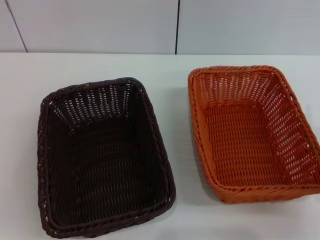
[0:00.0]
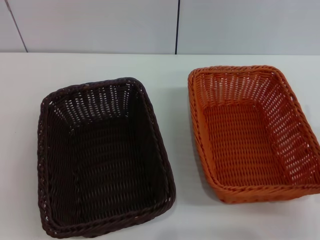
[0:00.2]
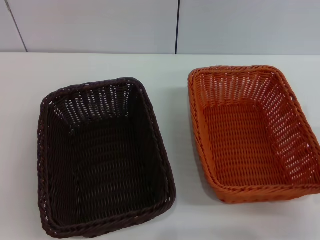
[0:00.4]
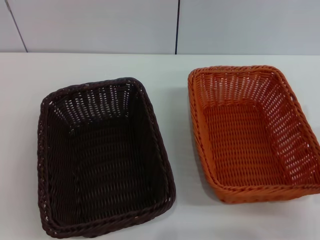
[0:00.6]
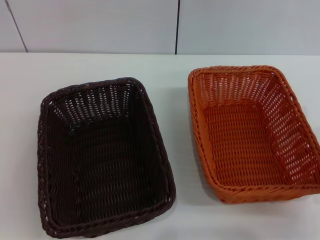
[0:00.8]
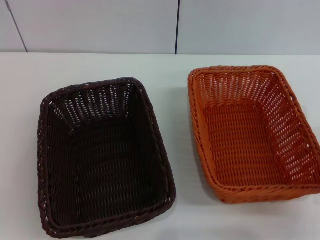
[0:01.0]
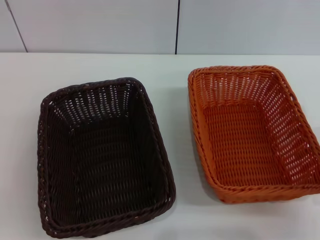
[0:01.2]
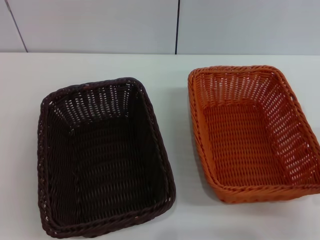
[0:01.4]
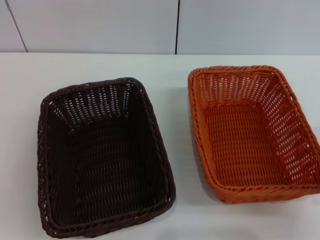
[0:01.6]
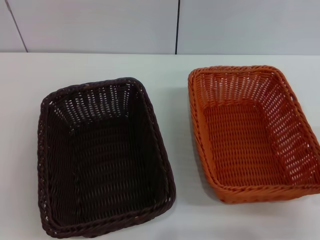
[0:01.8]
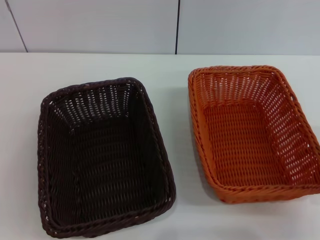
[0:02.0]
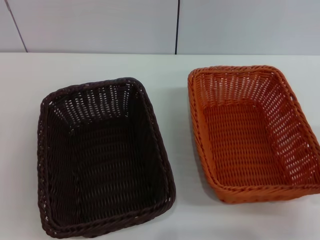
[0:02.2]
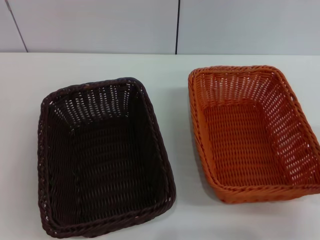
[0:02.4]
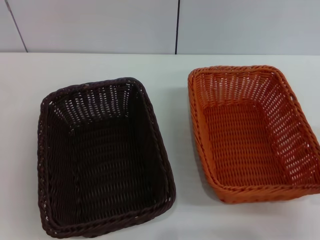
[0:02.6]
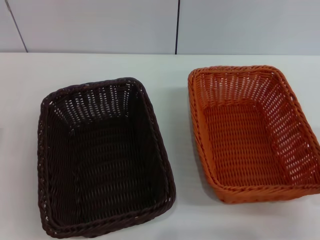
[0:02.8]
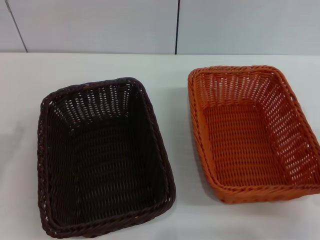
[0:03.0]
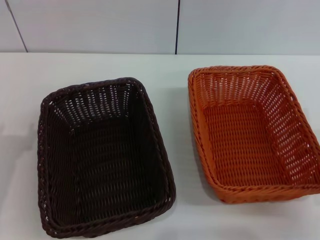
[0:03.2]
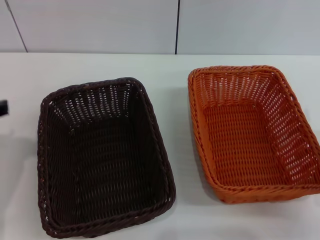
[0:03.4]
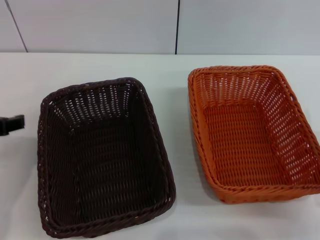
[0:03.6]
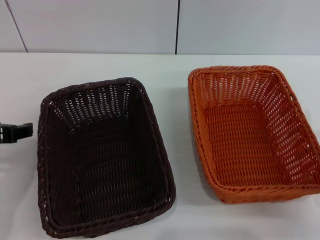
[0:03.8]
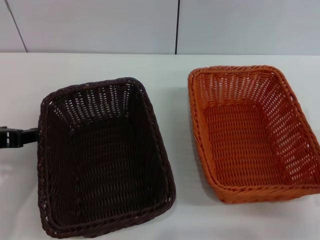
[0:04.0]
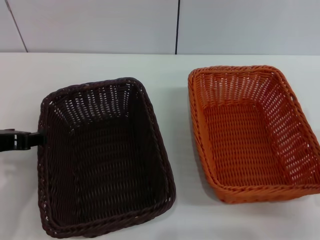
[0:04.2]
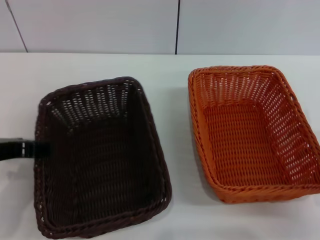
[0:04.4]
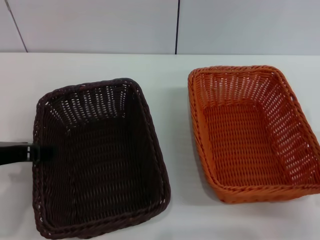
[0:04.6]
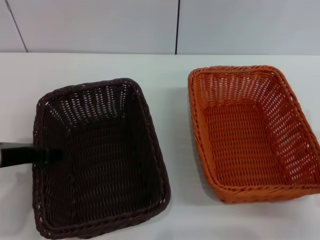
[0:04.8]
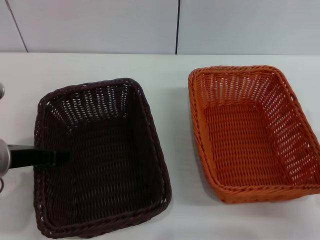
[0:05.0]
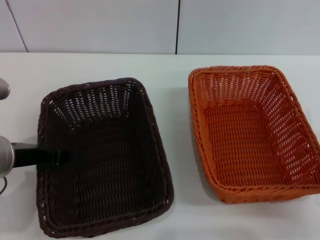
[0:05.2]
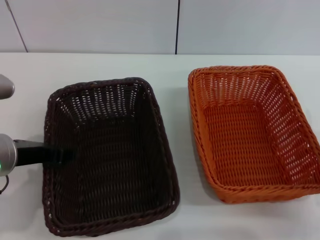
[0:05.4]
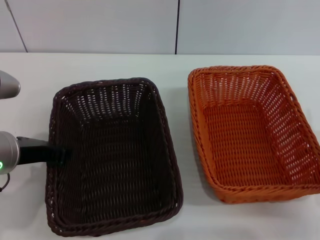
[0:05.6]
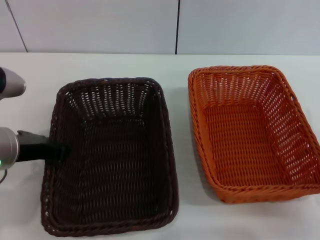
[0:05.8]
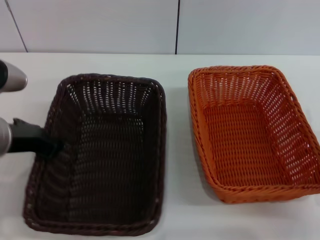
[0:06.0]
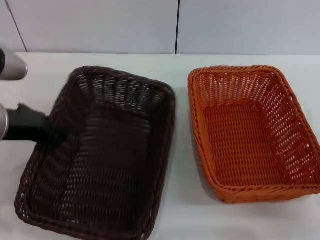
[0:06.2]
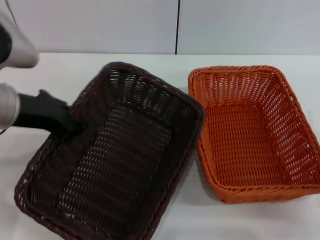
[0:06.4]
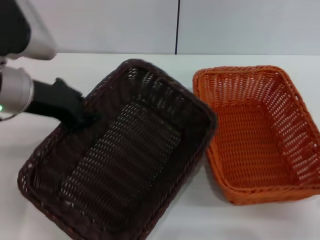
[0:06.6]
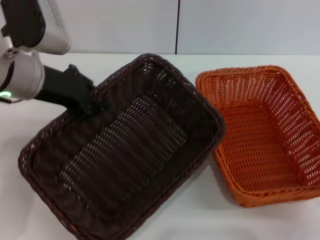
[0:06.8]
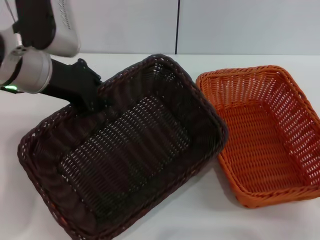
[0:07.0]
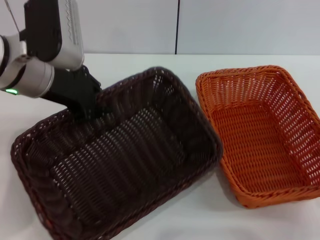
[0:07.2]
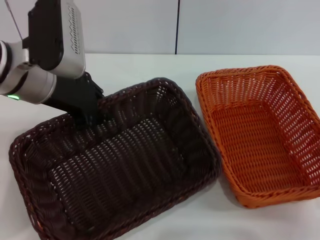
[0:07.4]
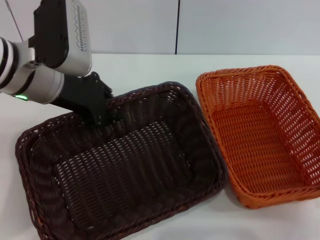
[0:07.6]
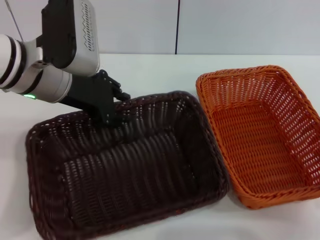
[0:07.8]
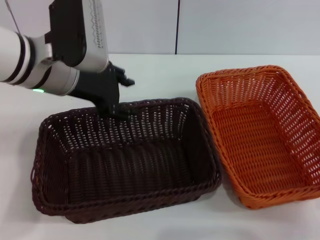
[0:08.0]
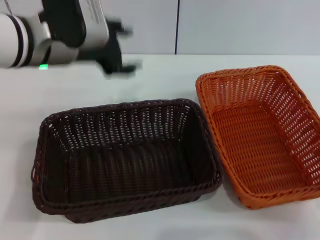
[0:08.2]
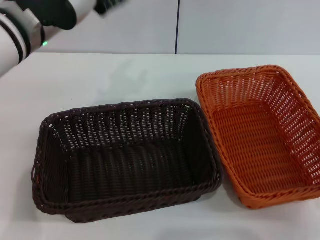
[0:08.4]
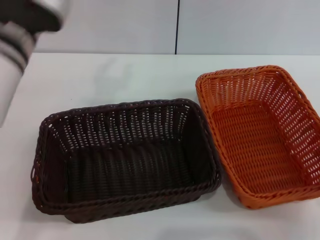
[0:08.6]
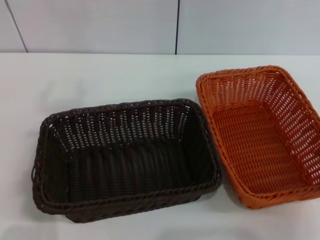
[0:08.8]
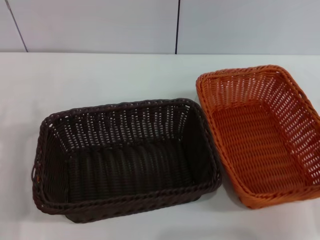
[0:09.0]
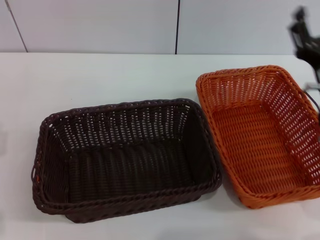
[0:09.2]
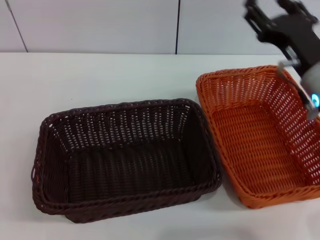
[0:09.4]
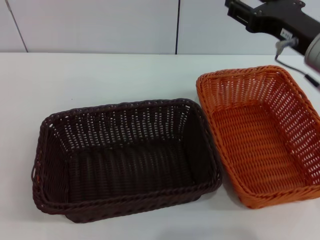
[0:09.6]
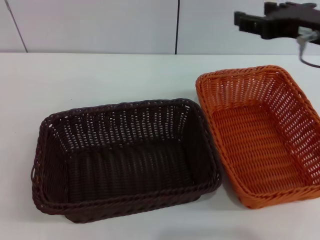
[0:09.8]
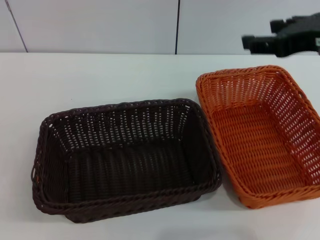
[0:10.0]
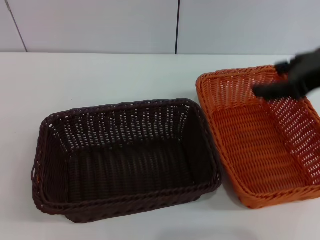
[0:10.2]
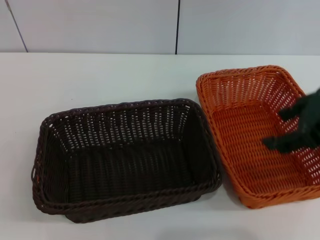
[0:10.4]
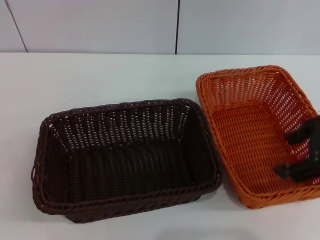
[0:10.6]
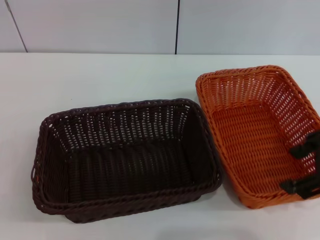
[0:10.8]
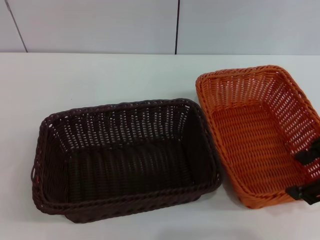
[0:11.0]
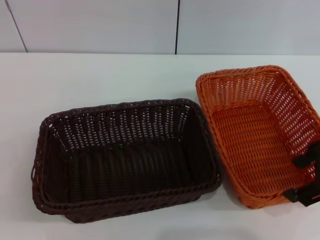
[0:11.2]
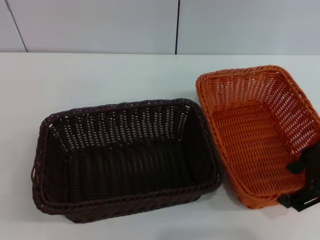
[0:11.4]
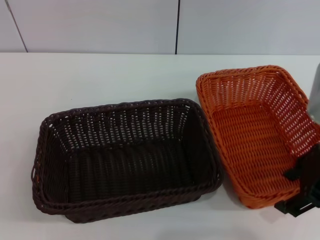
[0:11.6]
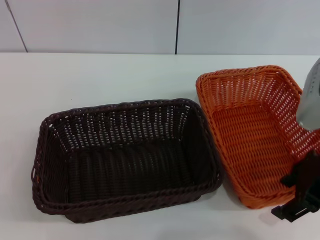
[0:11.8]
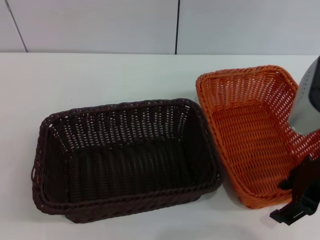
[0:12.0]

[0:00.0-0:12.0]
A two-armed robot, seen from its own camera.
Step, 0:00.0 to 0:06.8: Pick up the dark basket with the left gripper.
Step, 0:07.0 to 0:07.8: Place the dark basket in the center of view with the left gripper.
0:00.0 to 0:01.6: Both grippers stay about where they are.
0:03.0 to 0:04.4: The left gripper heads to the right, covering some 5 cm.
0:04.4 to 0:06.0: The left gripper closes its fingers.
0:06.0 to 0:07.6: The left gripper goes approximately 10 cm forward.
0:07.6 to 0:09.0: The right gripper ends up some 5 cm from where it was; the left gripper is displaced backward, to the left and downward by approximately 15 cm, and opens its fingers.
0:09.0 to 0:10.4: The right gripper travels upward by some 20 cm.
0:10.4 to 0:12.0: The right gripper goes roughly 5 cm downward.

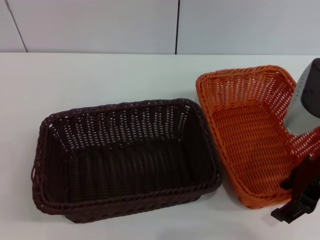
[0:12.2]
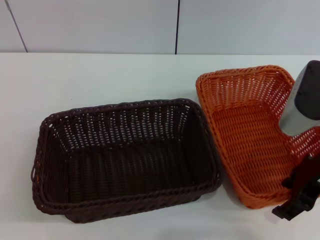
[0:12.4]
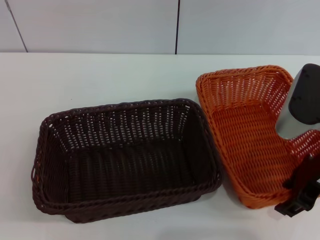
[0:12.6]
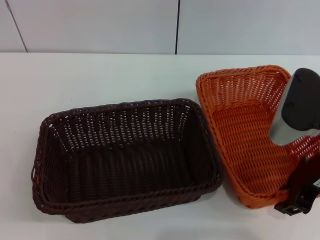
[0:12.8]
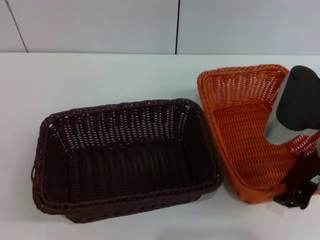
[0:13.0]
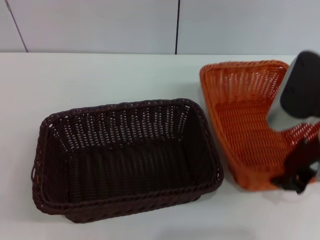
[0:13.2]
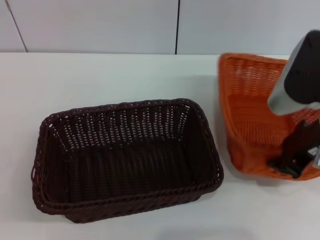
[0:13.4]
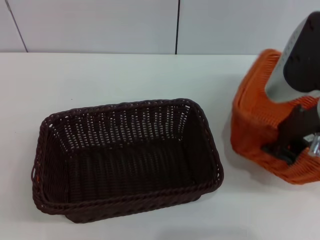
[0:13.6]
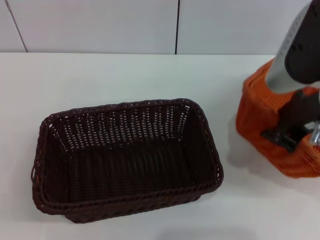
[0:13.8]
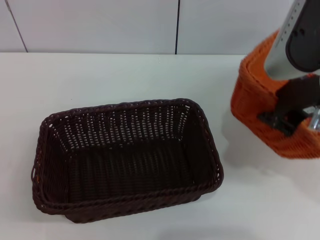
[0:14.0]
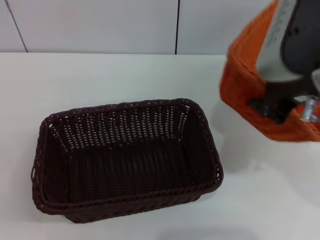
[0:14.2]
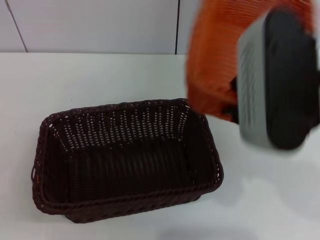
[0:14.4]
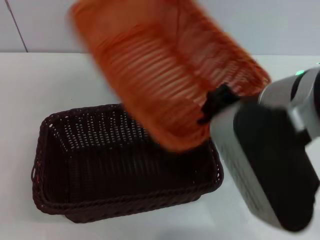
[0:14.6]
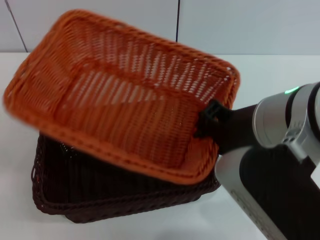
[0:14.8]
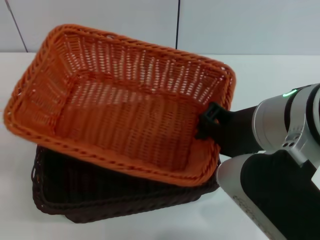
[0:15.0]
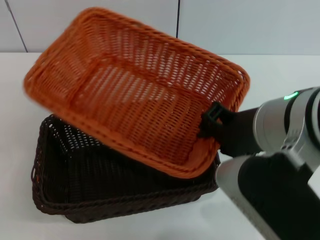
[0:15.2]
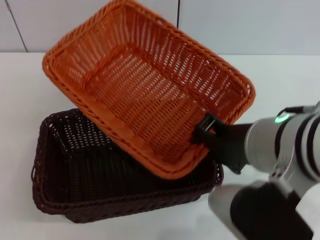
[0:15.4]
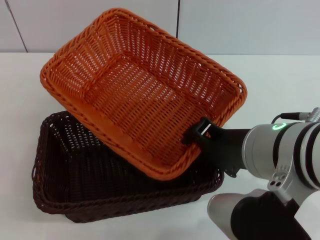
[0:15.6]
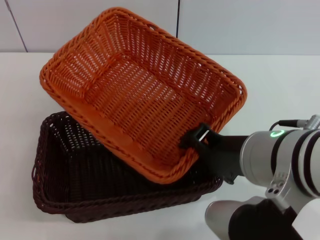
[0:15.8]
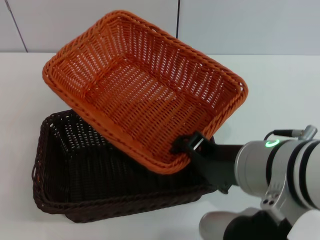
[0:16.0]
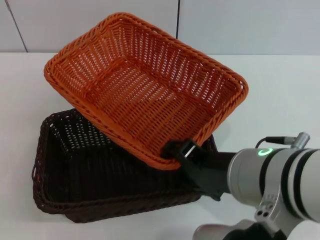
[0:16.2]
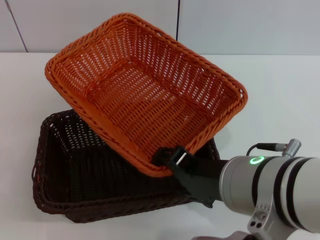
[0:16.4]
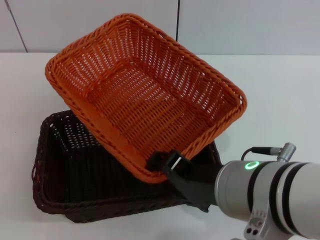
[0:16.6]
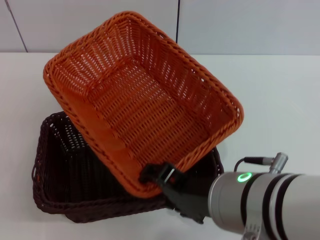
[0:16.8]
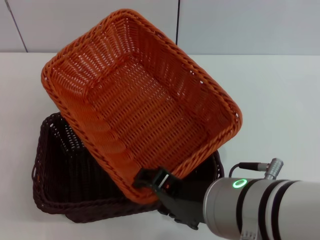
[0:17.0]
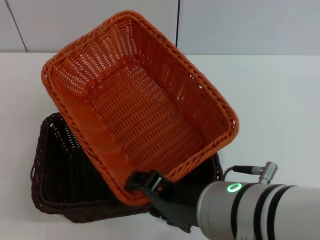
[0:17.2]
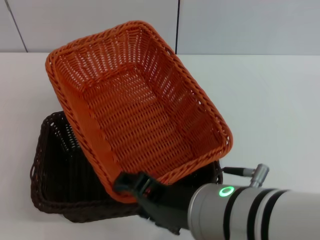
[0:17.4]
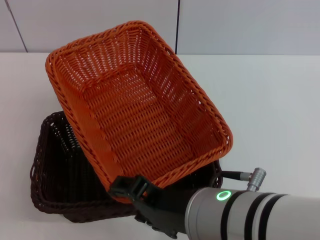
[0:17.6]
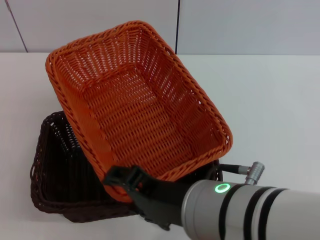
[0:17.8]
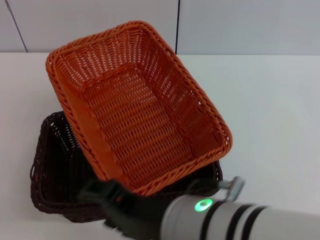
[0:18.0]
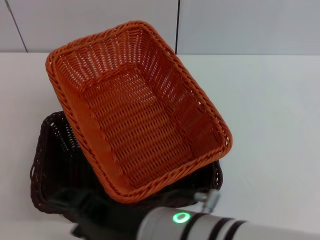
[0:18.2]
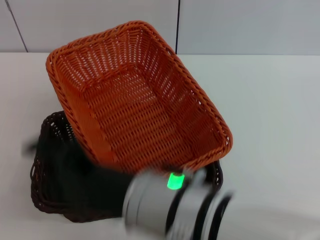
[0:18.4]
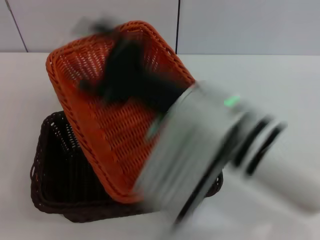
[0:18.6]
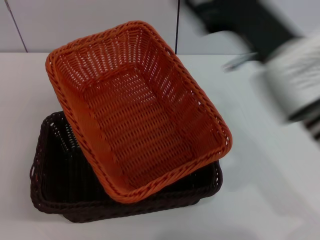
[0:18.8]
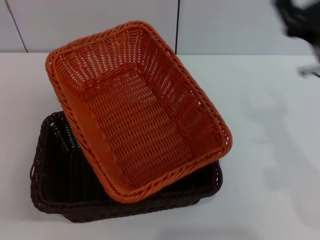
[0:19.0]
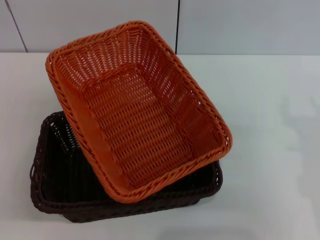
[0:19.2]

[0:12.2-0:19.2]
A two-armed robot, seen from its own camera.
Step, 0:13.6 to 0:17.8: Place the light basket on the dark basket with the right gripper.
0:12.2 to 0:13.6: The right gripper changes place by approximately 5 cm, and closes up.
0:13.6 to 0:15.0: The right gripper is displaced to the left by some 10 cm.
0:15.0 to 0:16.4: The right gripper moves approximately 5 cm, and opens its fingers.
0:17.8 to 0:19.2: The right gripper heads to the right and forward, covering about 20 cm.
